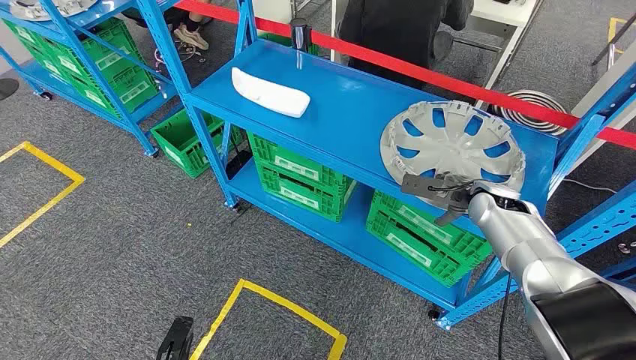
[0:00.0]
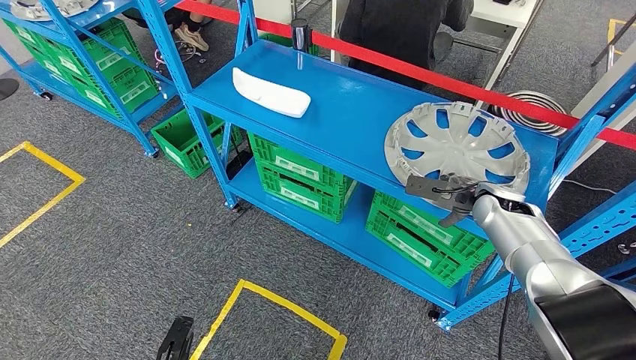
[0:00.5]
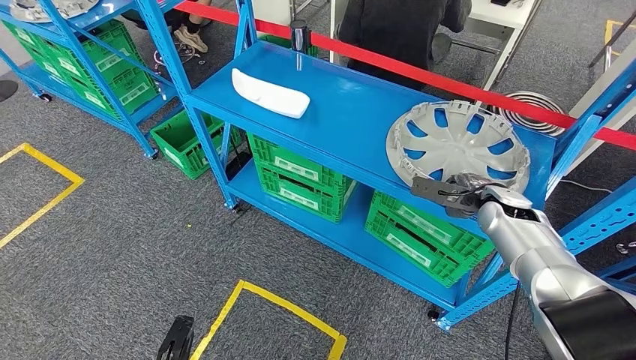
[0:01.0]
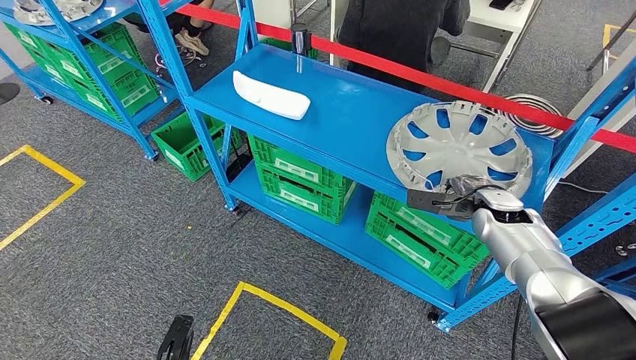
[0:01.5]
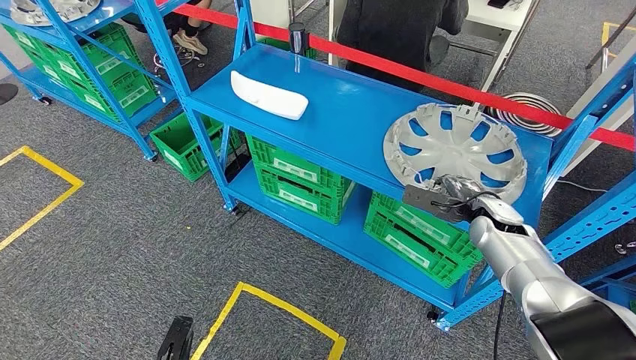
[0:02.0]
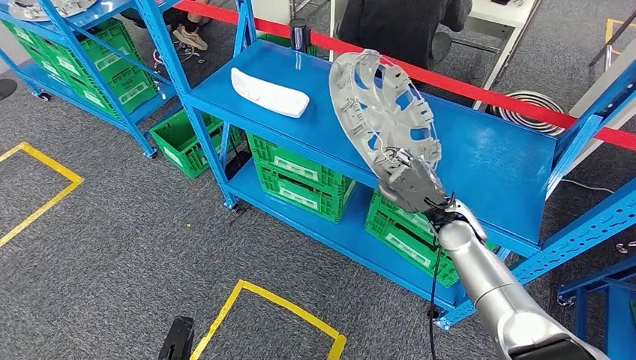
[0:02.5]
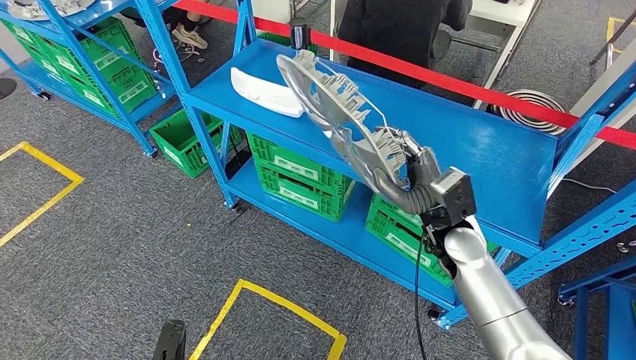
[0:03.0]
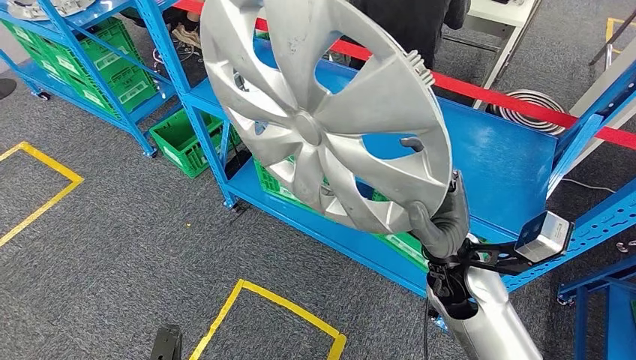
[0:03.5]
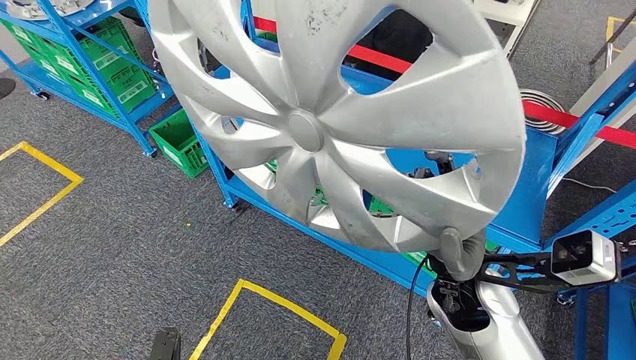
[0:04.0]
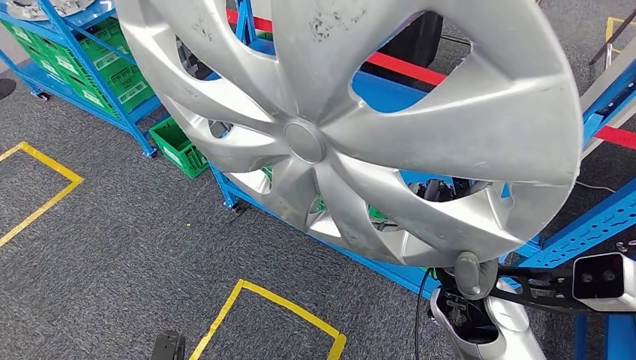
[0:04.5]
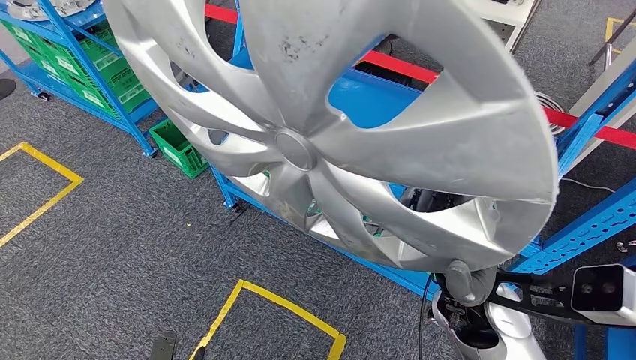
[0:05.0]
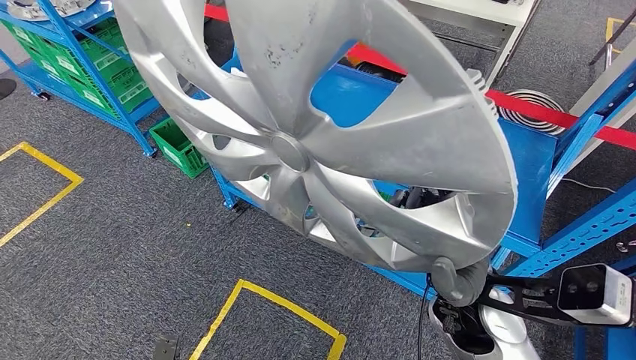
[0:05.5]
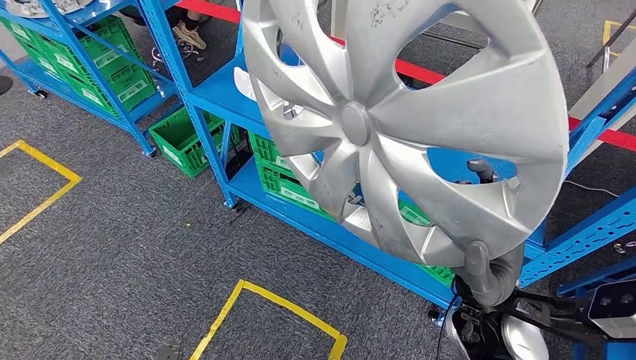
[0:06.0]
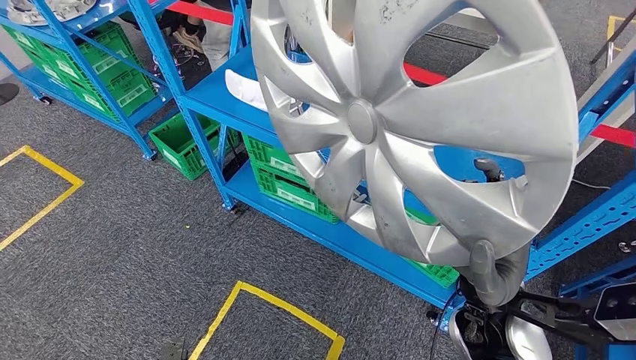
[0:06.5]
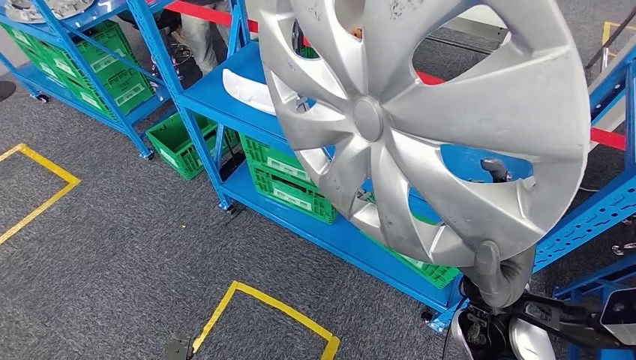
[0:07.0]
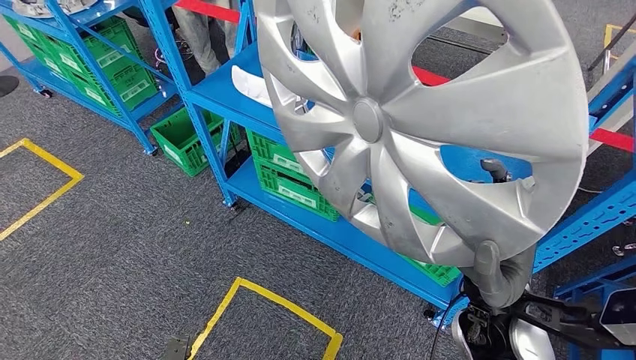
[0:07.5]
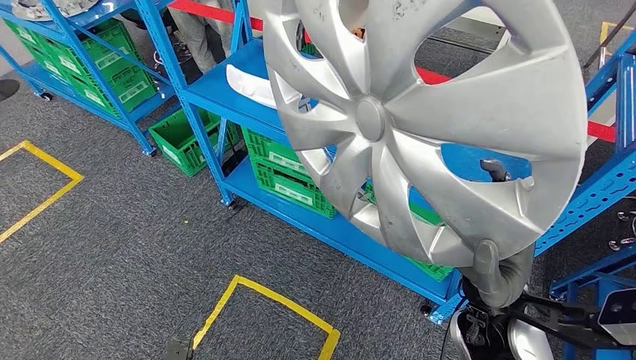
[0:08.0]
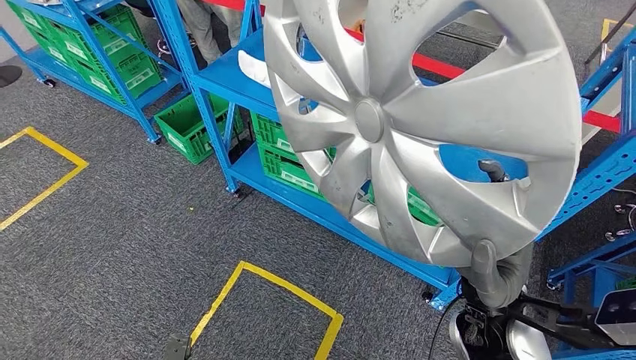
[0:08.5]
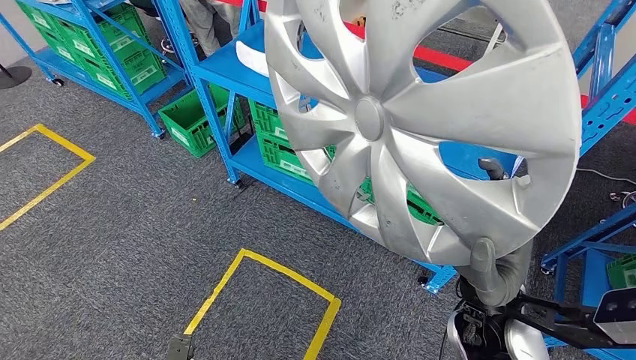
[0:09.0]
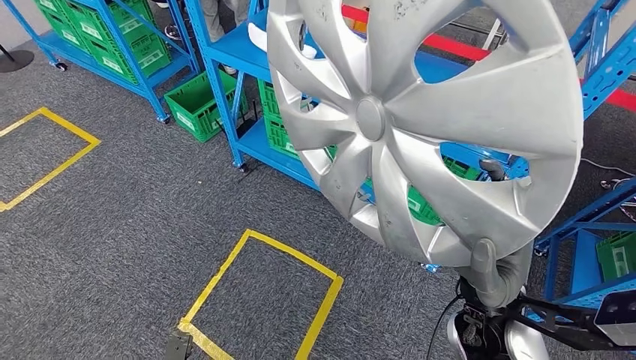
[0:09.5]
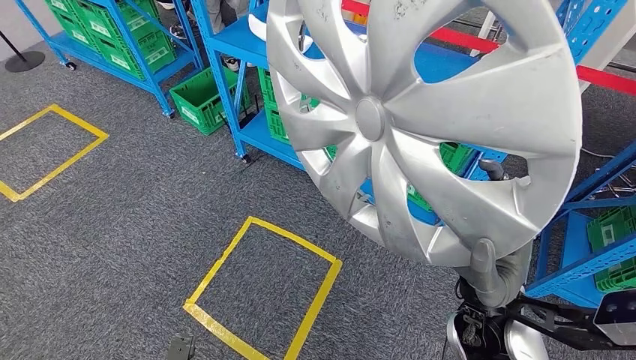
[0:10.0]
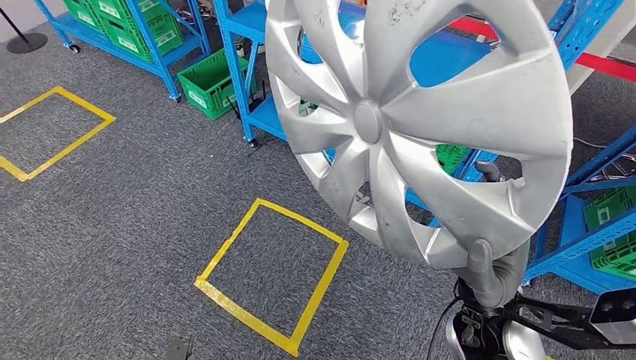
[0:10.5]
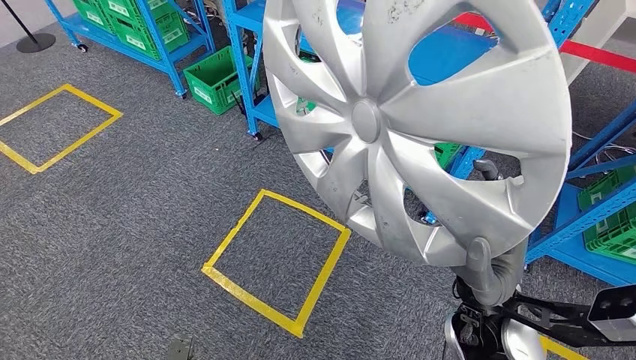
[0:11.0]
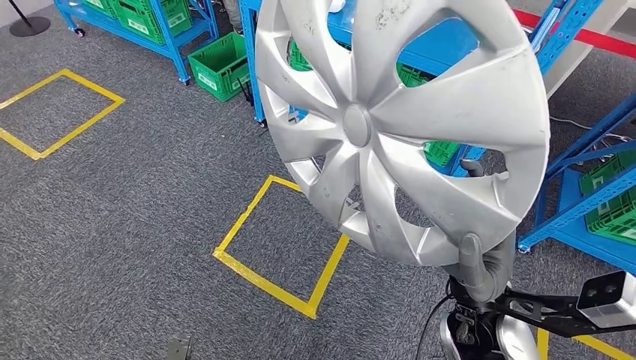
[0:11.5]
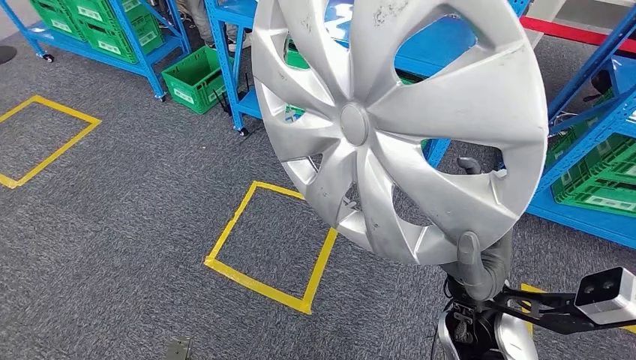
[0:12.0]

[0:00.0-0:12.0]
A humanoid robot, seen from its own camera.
Step, 0:00.0 to 0:03.5: Pick up the small parts from the shelf.

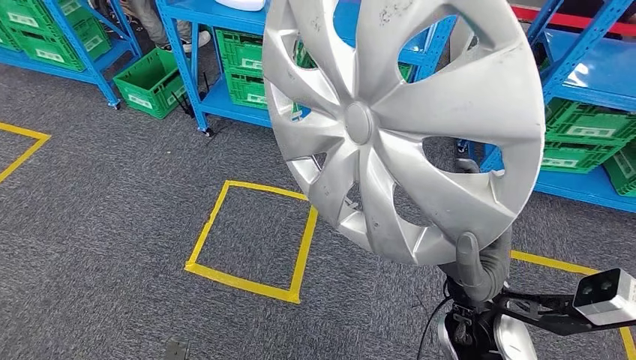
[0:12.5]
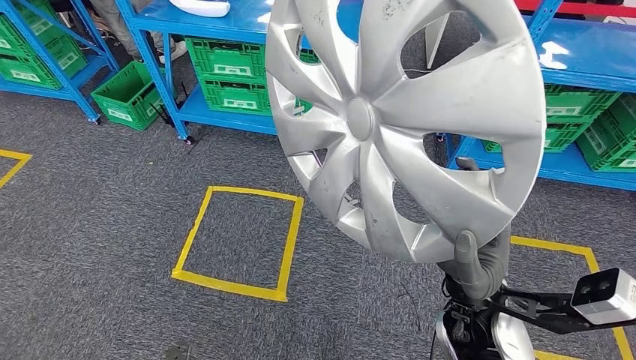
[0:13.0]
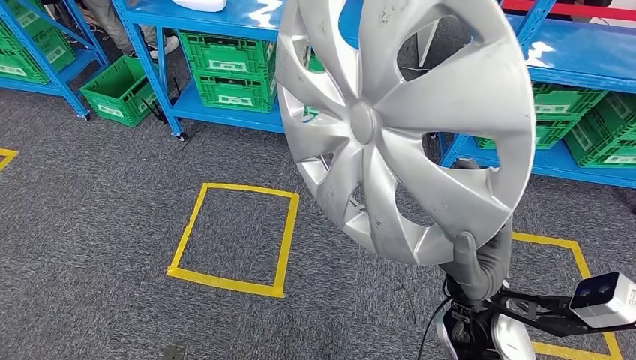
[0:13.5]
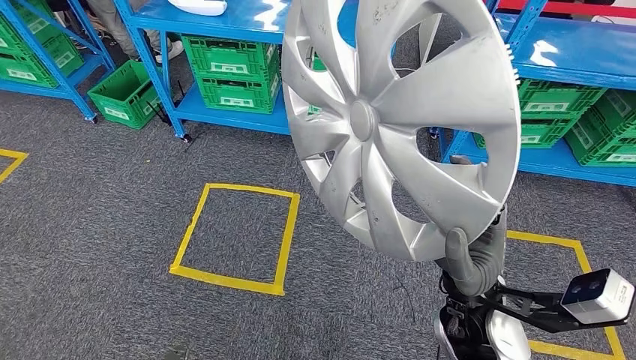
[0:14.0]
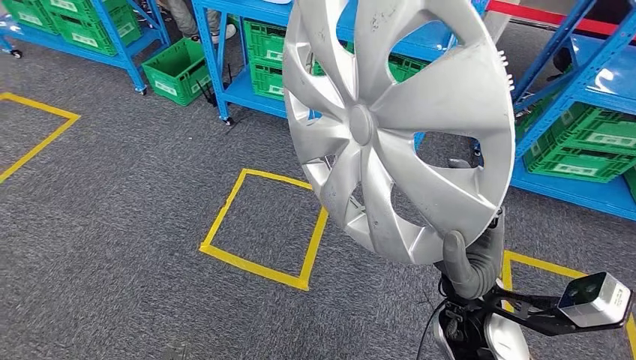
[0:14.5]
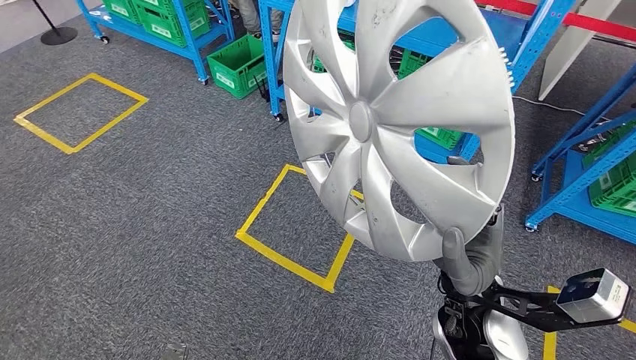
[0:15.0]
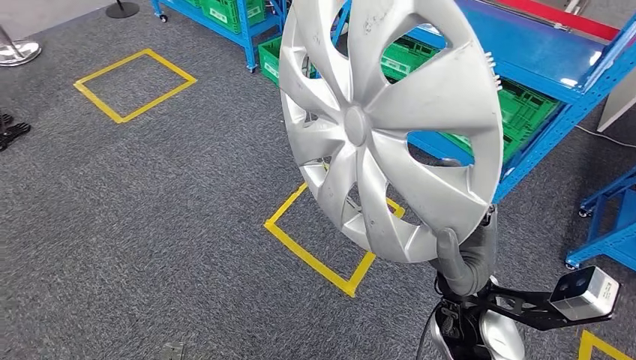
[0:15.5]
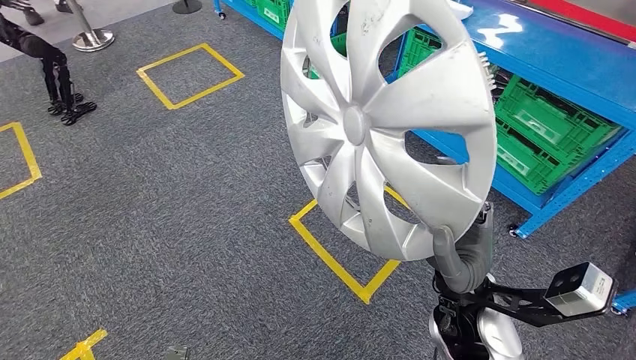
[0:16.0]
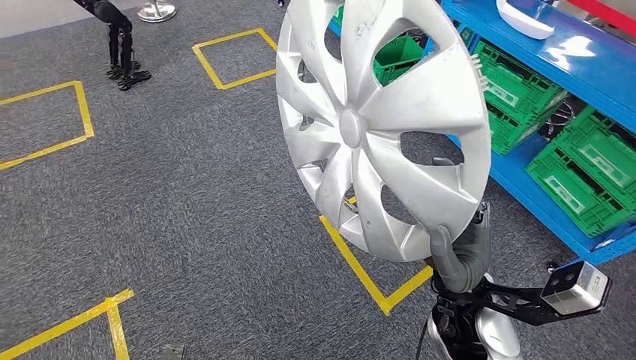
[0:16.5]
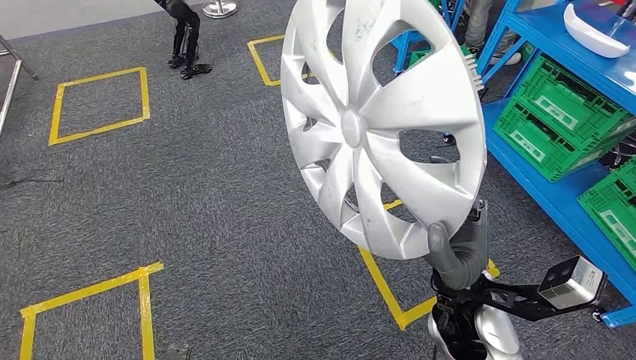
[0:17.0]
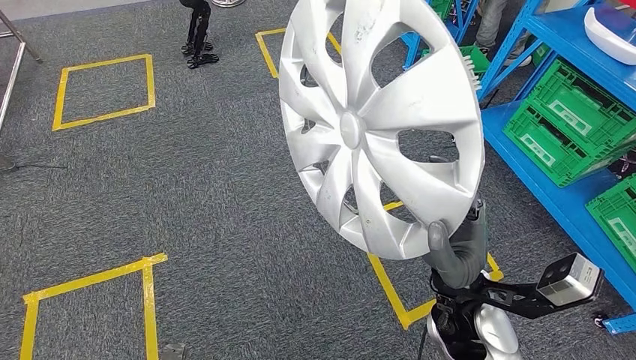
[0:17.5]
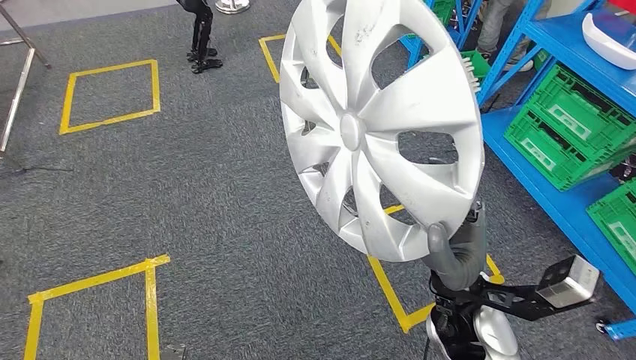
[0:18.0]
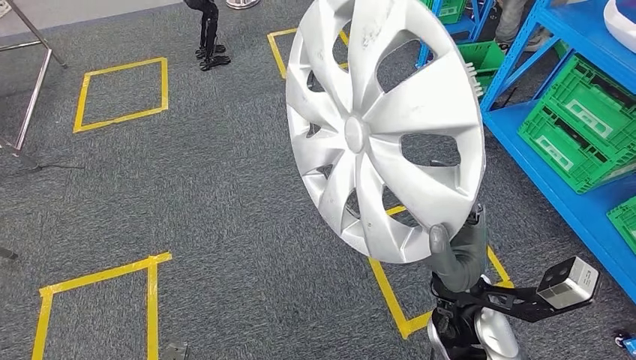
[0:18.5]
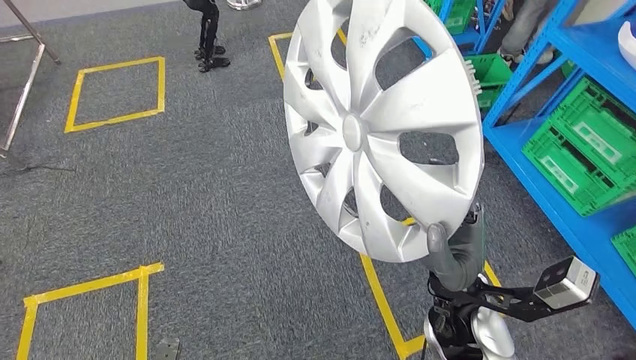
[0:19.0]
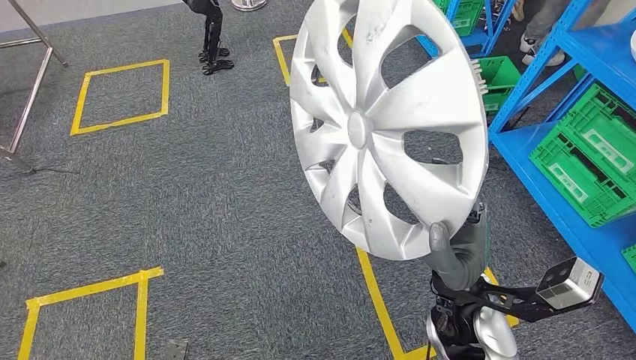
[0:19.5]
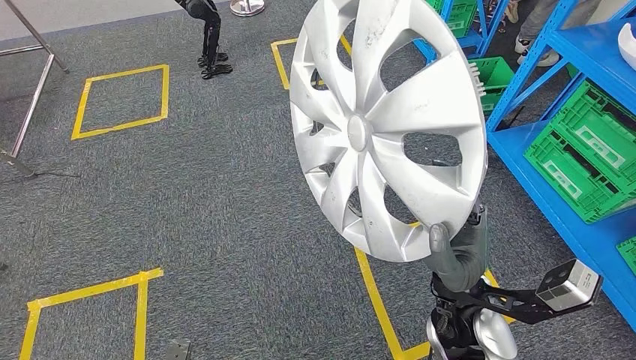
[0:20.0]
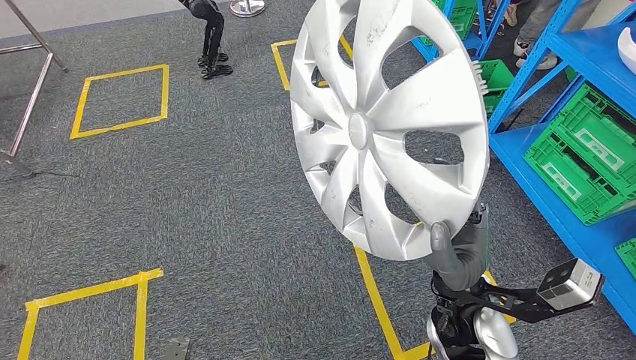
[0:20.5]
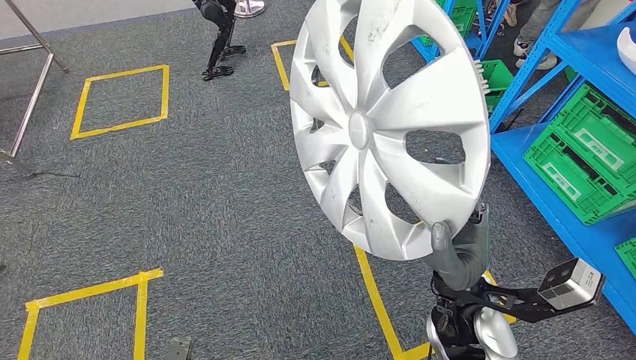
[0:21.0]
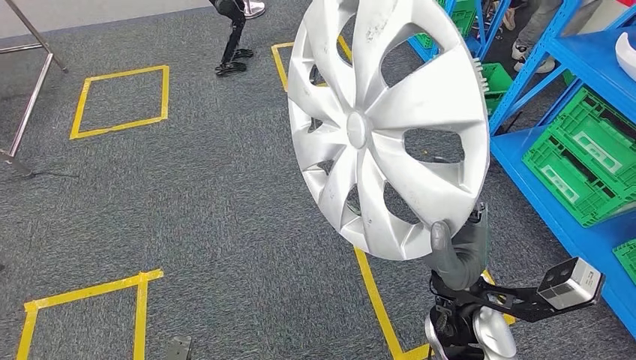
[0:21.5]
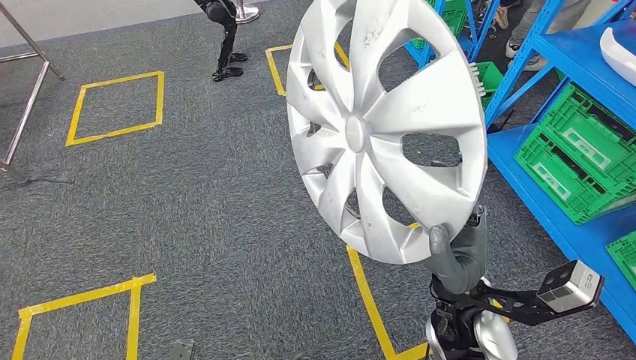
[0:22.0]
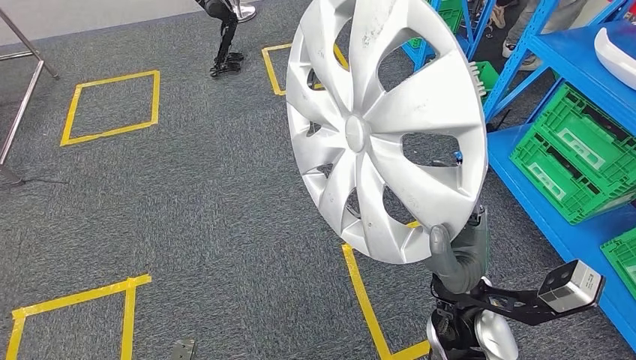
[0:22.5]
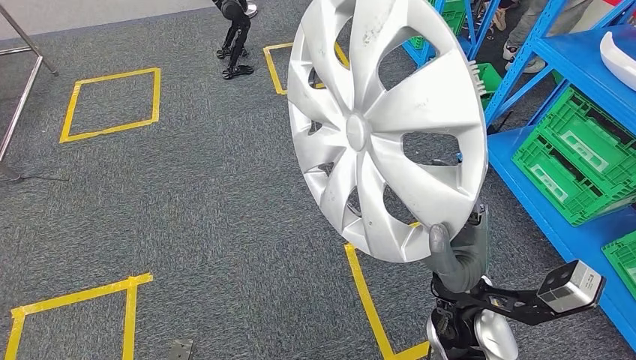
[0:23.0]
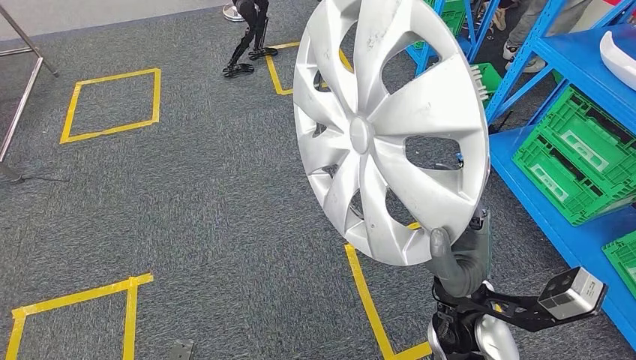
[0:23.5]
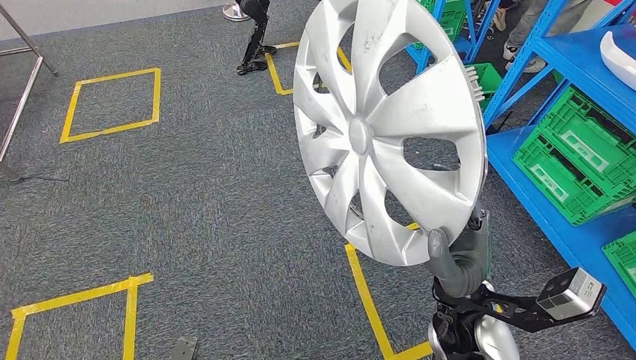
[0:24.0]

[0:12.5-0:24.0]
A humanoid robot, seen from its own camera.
0:20.0 to 0:24.0: Both hands stay about where they are.
